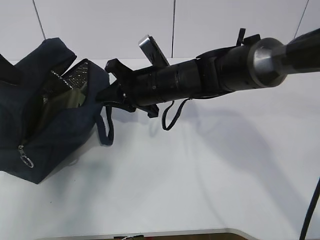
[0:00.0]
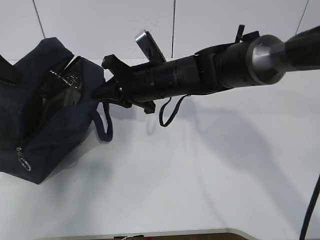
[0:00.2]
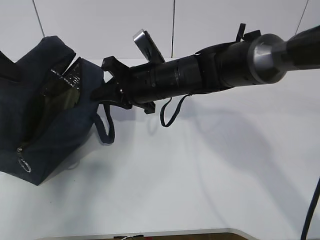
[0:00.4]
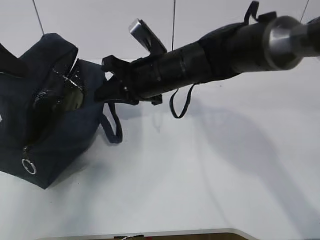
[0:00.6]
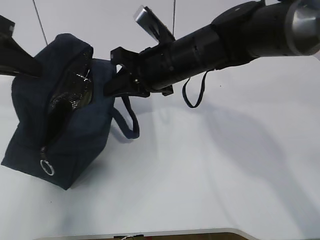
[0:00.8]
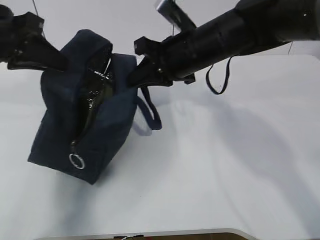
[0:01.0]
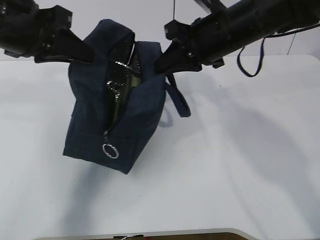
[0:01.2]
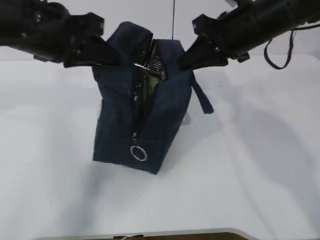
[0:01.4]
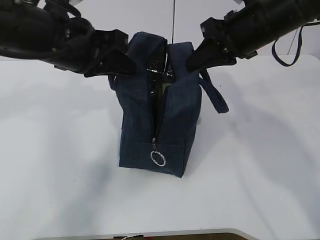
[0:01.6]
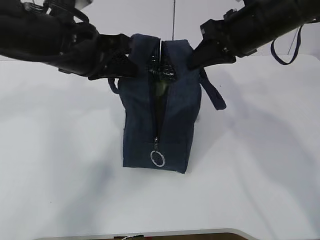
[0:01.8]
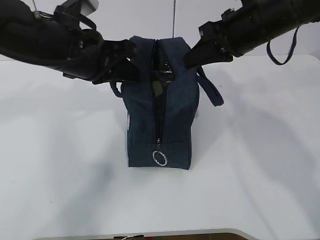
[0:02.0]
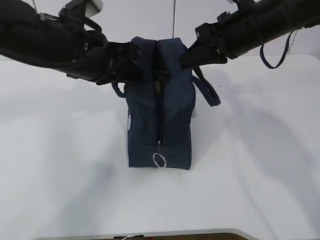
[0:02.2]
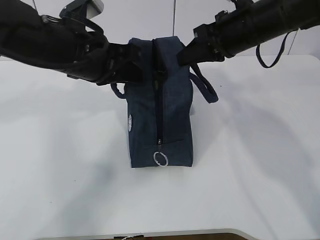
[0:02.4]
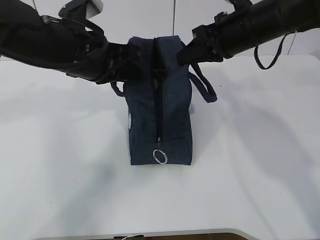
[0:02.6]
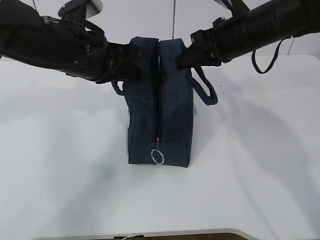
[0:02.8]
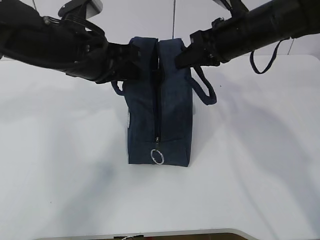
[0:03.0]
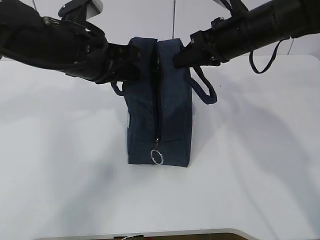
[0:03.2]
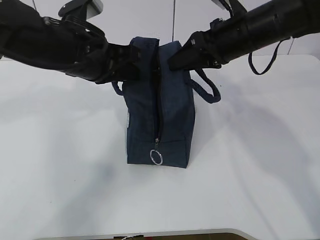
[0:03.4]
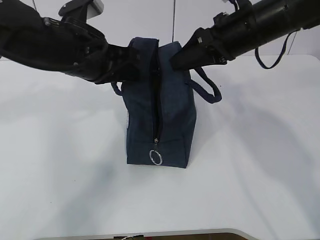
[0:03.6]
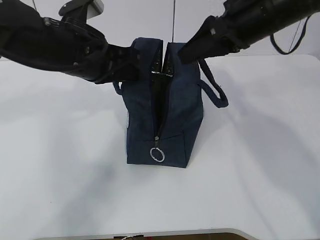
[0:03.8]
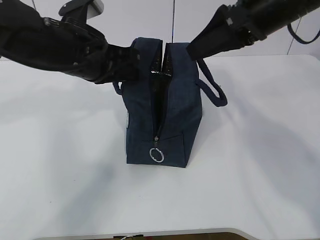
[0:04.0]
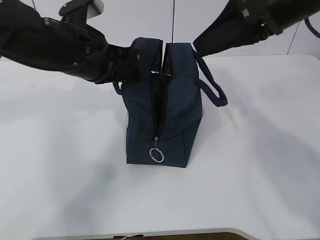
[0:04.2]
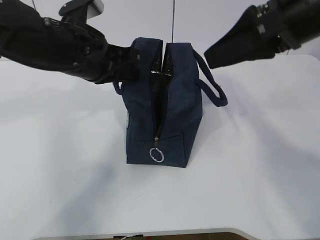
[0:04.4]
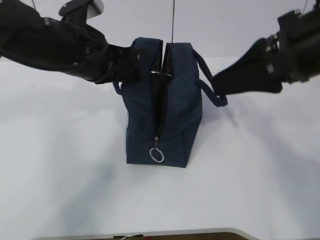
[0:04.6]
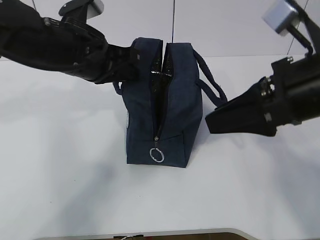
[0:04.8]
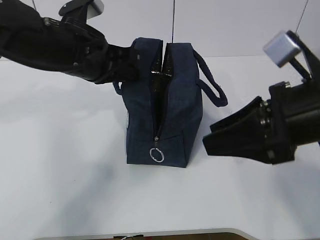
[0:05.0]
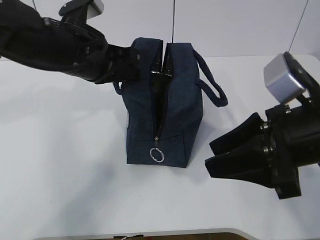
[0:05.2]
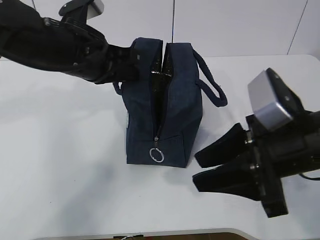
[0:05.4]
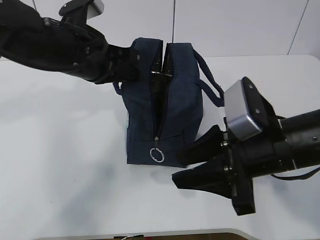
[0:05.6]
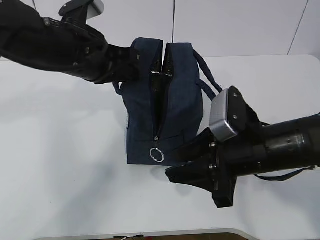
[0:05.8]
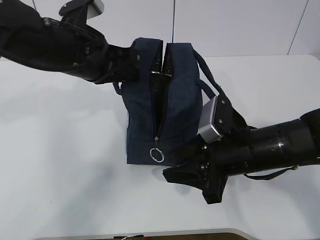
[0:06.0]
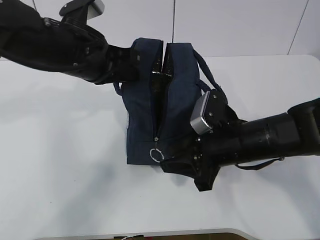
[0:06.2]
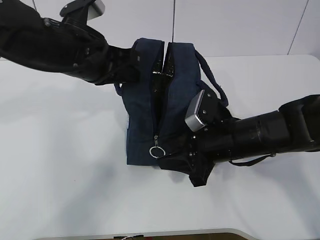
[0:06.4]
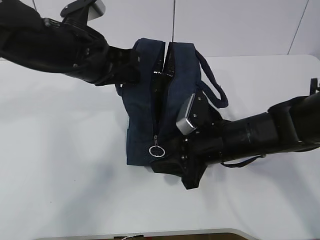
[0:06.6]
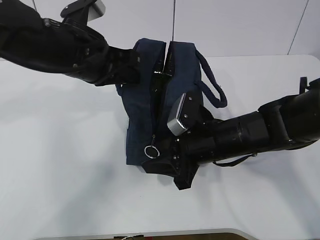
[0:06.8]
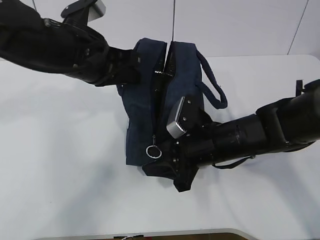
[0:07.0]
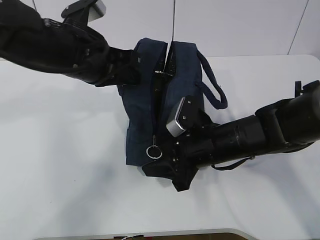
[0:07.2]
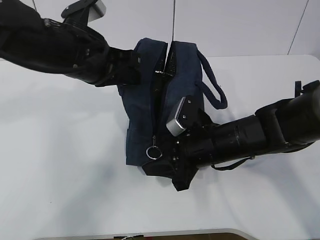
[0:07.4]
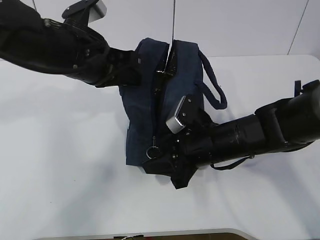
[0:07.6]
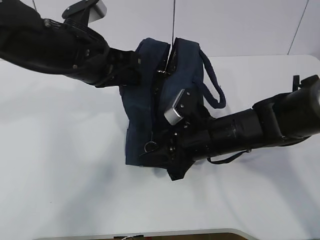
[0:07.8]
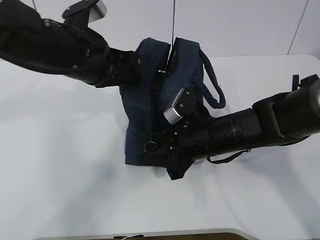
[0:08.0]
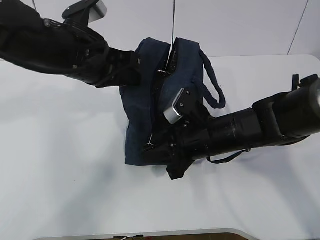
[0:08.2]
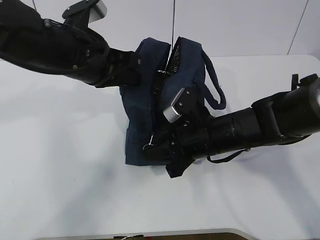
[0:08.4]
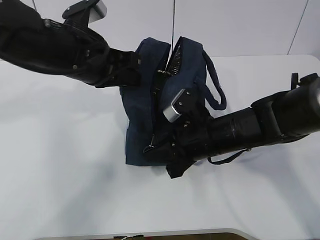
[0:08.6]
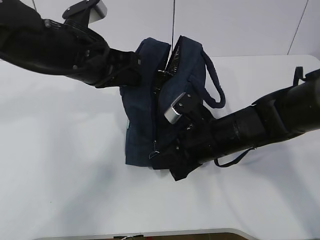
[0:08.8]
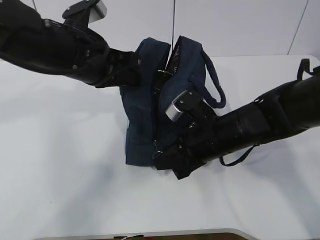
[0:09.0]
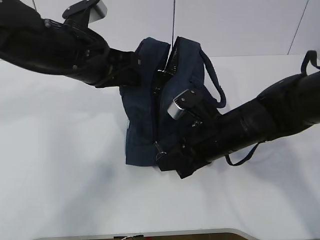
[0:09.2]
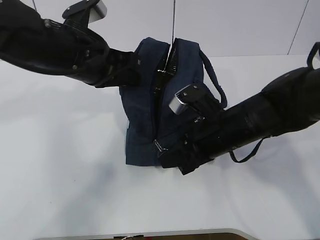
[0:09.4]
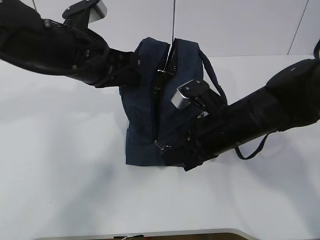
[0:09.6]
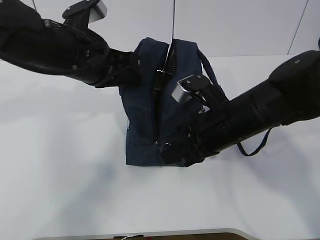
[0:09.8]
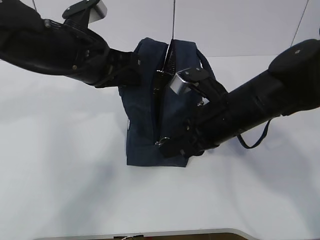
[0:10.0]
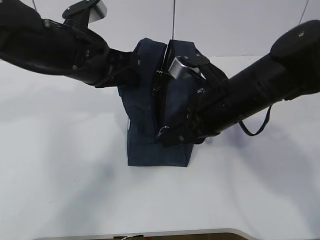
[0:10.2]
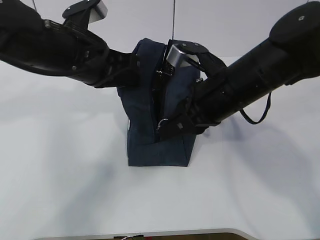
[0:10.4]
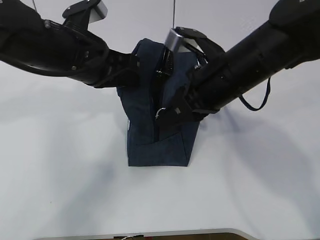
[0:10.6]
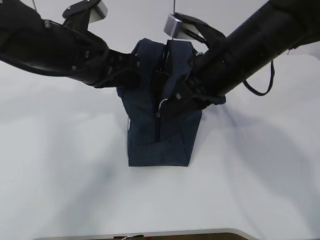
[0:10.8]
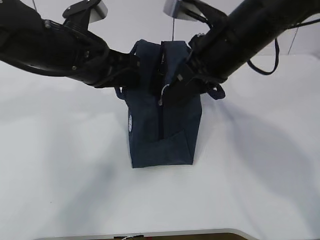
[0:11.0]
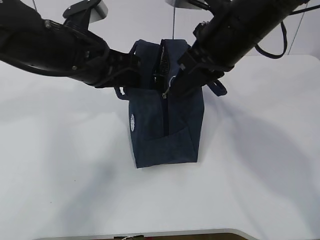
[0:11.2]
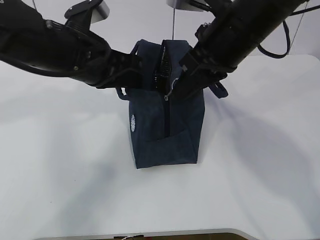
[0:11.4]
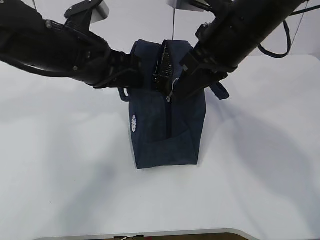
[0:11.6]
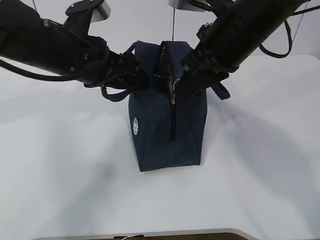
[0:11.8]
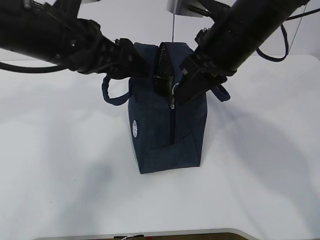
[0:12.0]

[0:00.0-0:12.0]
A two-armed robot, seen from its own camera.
Step, 0:00.0 to 0:04.4: Move the lunch bag to the left.
0:00.0 to 0:01.6: The left gripper moves to the right, about 15 cm. Meanwhile the right gripper heads to the right and upward, covering some 20 cm.
0:01.6 to 0:03.0: There are only small adjustments of the grippers.
0:03.0 to 0:04.4: The right gripper goes about 15 cm backward and upward, and opens.
0:04.4 to 0:06.0: The right gripper heads downward, covering about 20 cm.
0:06.0 to 0:07.6: The right gripper ends up about 5 cm from where it was.
0:07.6 to 0:09.0: The right gripper closes its fingers.
0:09.0 to 0:10.4: The right gripper goes approximately 10 cm upward.
0:10.4 to 0:12.0: The left gripper opens. The right gripper heads upward, covering roughly 10 cm.

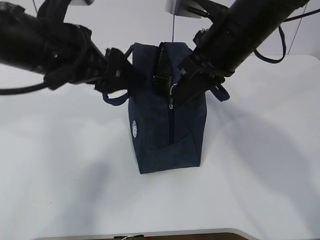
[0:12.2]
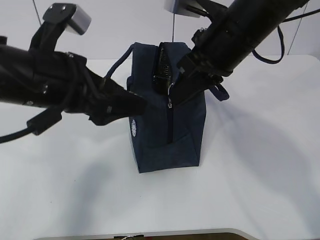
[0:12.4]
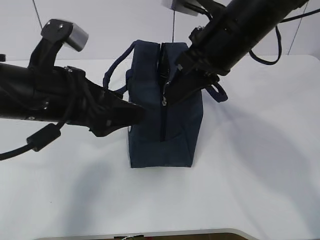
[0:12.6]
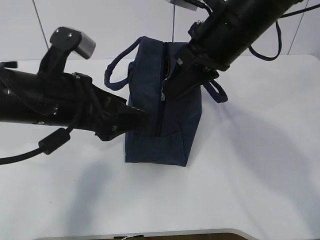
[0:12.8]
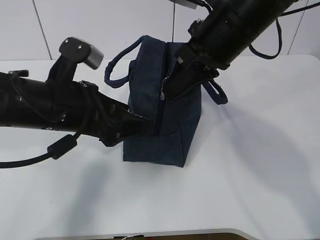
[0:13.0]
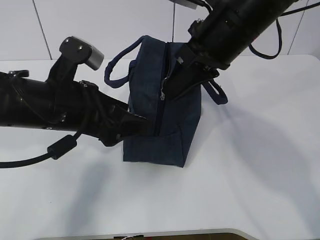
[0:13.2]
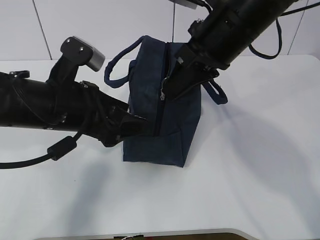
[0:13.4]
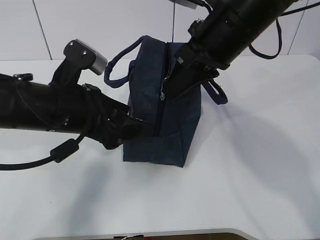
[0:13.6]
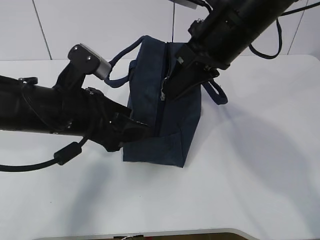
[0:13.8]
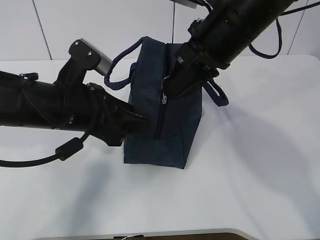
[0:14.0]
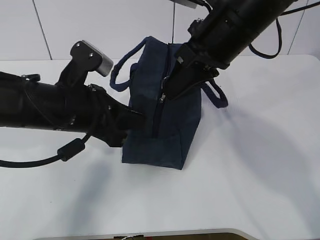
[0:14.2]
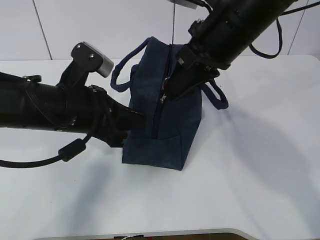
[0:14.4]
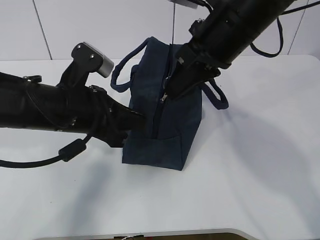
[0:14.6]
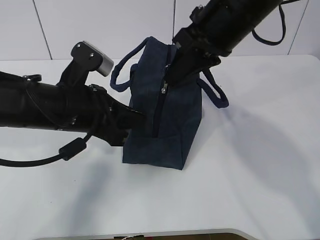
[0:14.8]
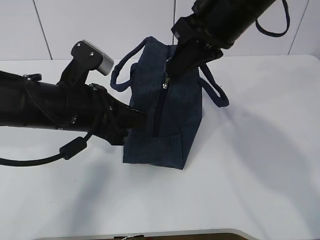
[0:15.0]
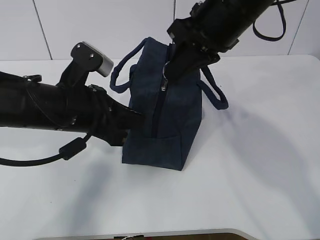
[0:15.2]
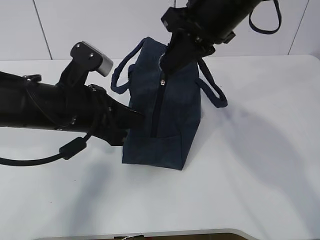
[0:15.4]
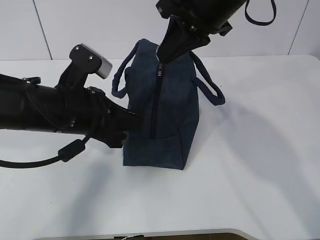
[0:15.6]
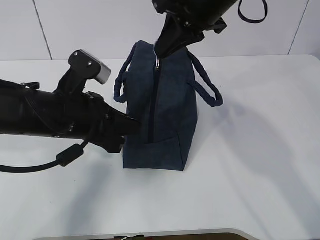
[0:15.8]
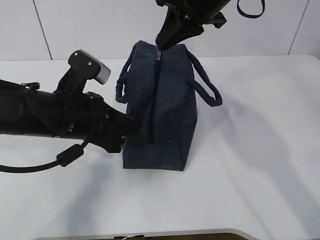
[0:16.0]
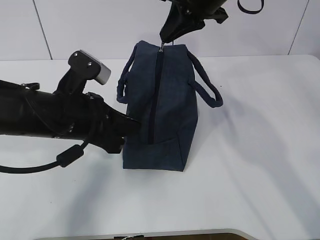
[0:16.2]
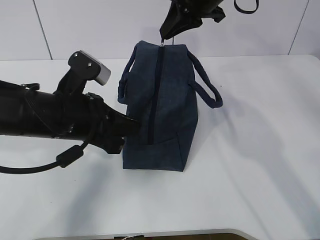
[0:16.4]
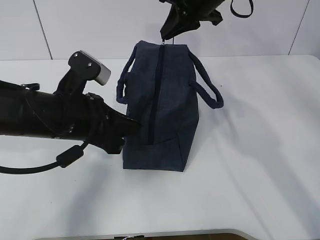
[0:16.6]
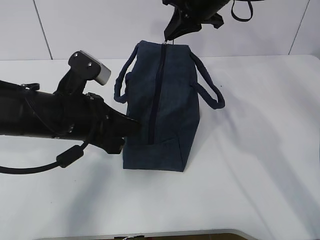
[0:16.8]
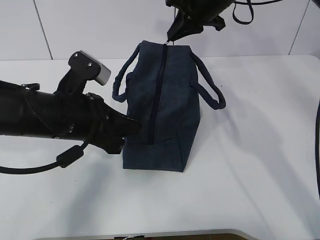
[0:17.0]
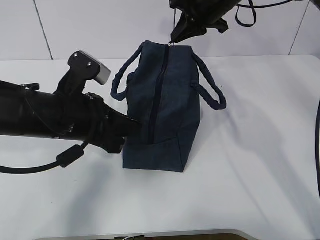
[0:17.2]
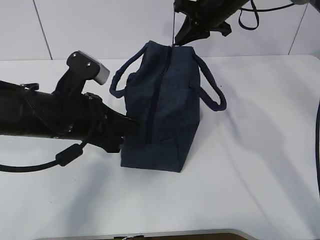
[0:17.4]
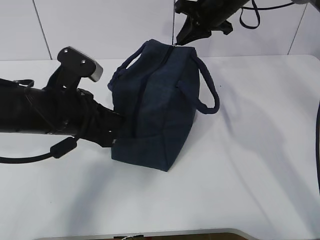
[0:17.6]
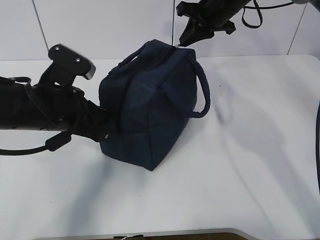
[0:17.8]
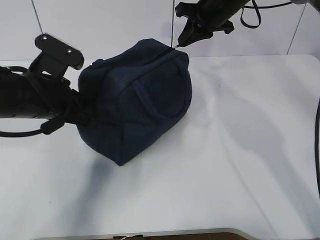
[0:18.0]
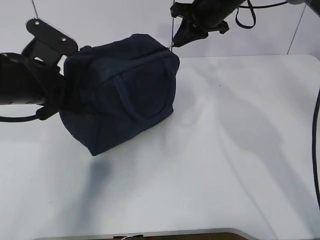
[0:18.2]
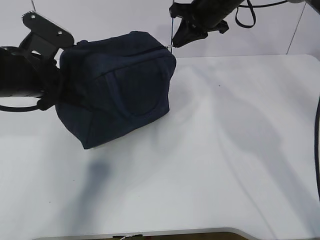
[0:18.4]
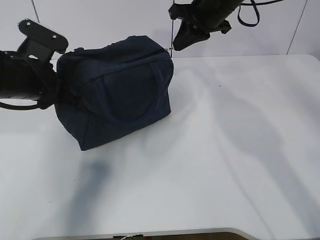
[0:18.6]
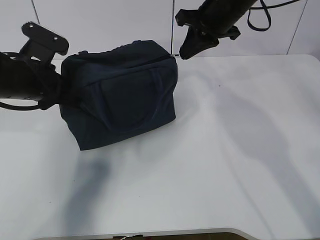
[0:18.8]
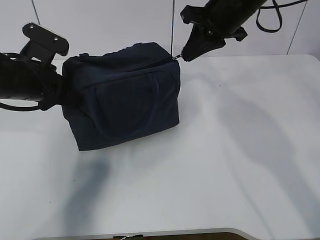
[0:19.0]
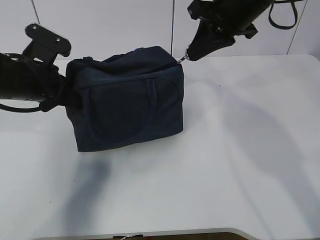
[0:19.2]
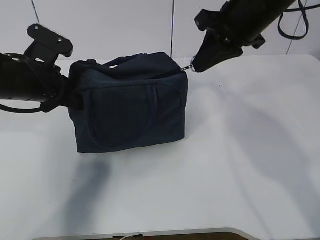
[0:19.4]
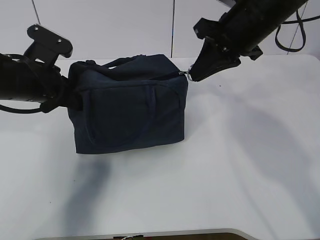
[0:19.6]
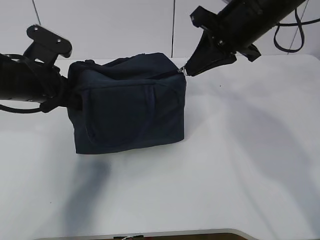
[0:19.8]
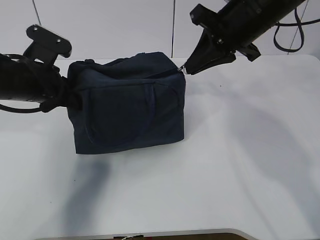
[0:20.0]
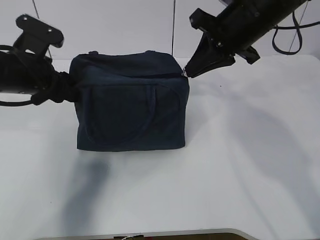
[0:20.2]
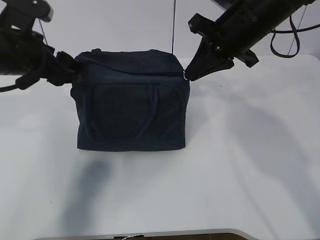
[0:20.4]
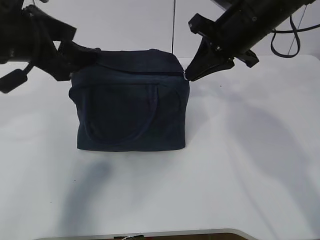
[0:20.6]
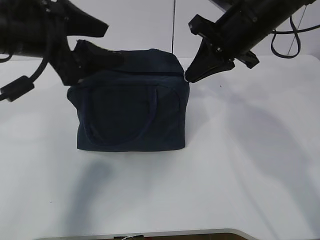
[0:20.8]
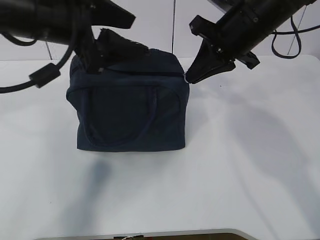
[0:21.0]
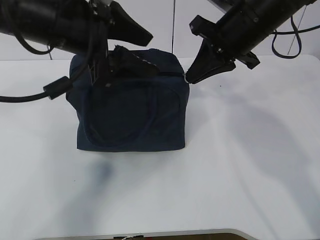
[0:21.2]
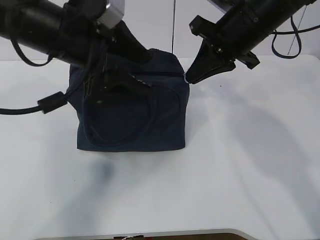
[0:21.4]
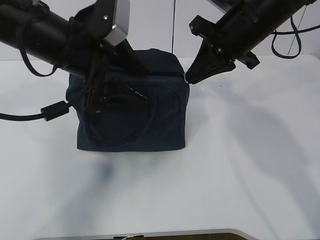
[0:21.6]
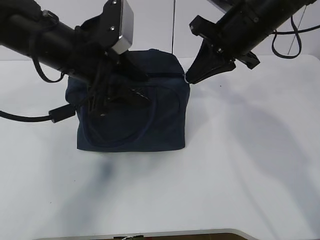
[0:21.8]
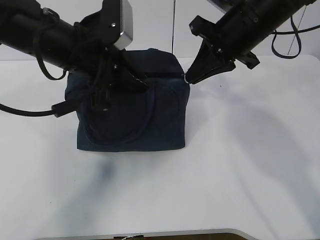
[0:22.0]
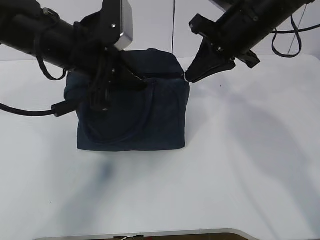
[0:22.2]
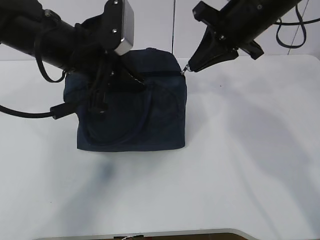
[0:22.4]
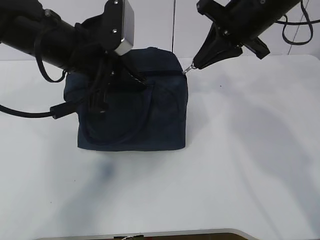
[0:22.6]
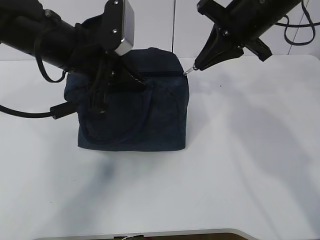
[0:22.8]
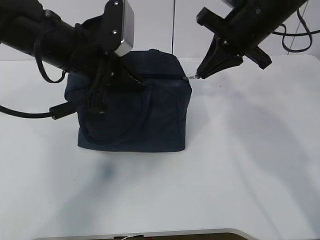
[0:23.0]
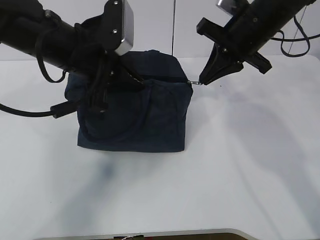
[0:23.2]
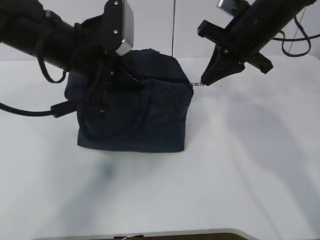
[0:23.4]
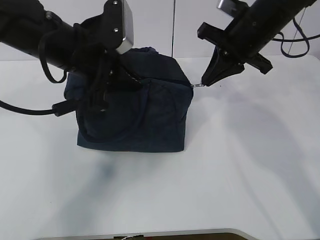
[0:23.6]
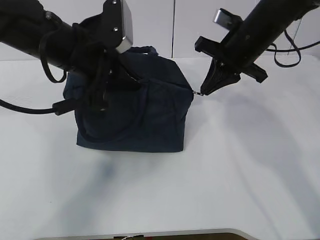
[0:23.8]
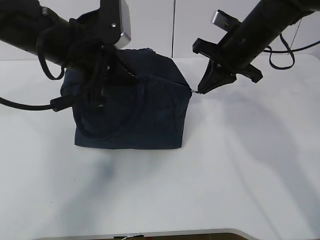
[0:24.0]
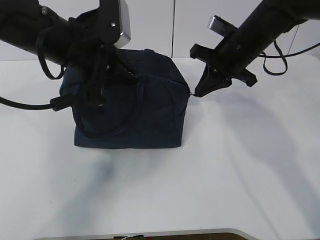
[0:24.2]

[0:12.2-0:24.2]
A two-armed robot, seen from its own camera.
Step, 0:12.2 to 0:15.0: Pull the zipper with your right hand.
0:12.2 to 0:13.8: The left gripper goes some 10 cm downward.
0:13.8 to 0:15.2: The left gripper closes its fingers.
0:15.2 to 0:16.6: The right gripper goes approximately 15 cm forward.
0:16.6 to 0:18.2: The left gripper travels to the left by about 5 cm. Meanwhile the right gripper shifts by roughly 5 cm.
0:18.2 to 0:19.8: The right gripper travels backward by roughly 15 cm.
0:19.8 to 0:21.2: The left gripper shifts roughly 15 cm upward and to the right, and opens up.
0:21.2 to 0:22.6: The left gripper closes its fingers.
0:22.6 to 0:24.2: The right gripper goes approximately 10 cm downward.
